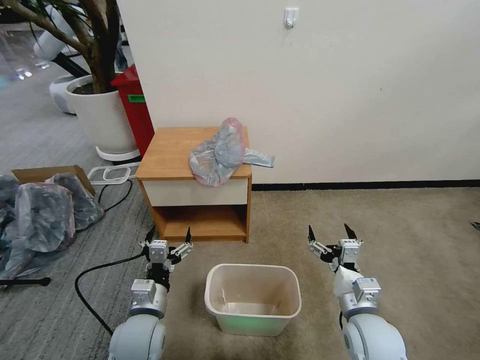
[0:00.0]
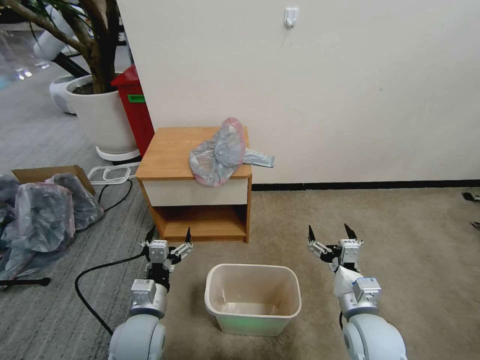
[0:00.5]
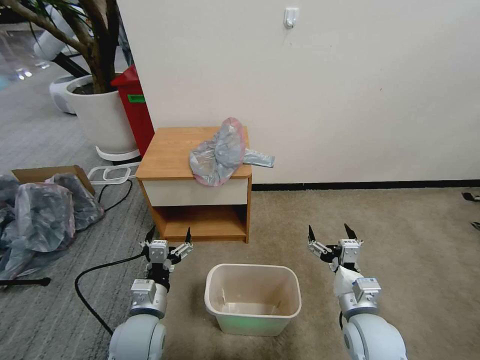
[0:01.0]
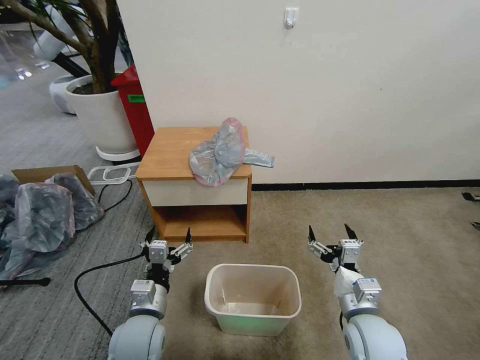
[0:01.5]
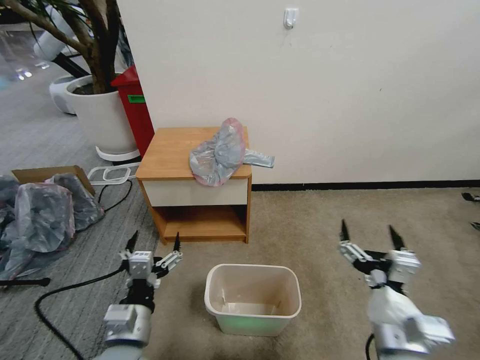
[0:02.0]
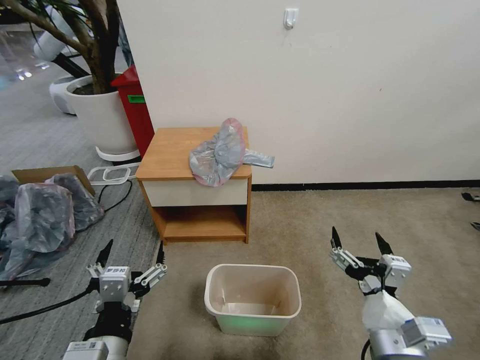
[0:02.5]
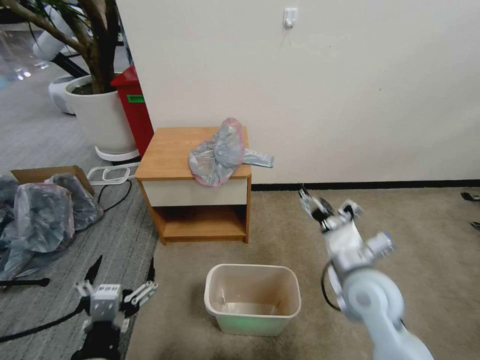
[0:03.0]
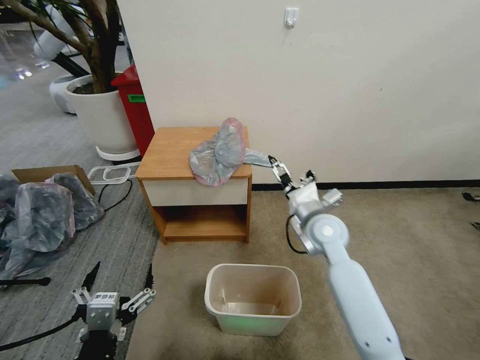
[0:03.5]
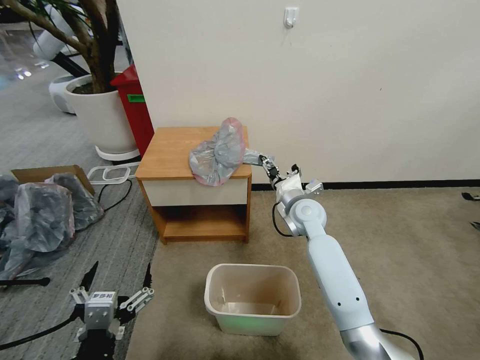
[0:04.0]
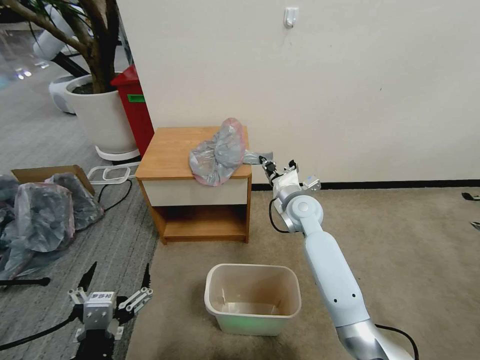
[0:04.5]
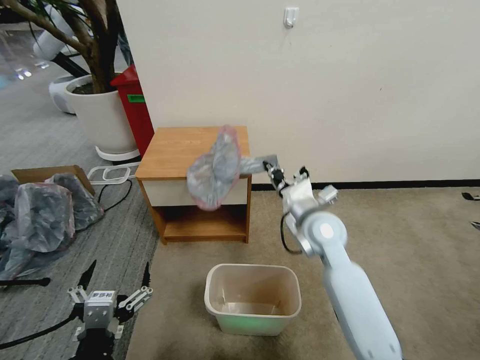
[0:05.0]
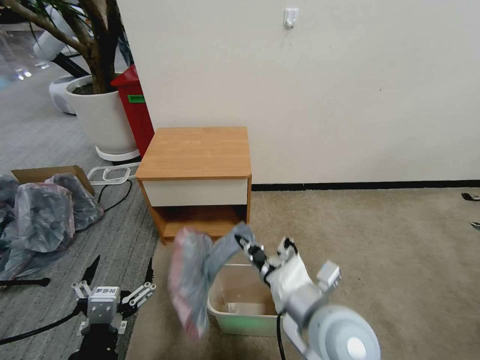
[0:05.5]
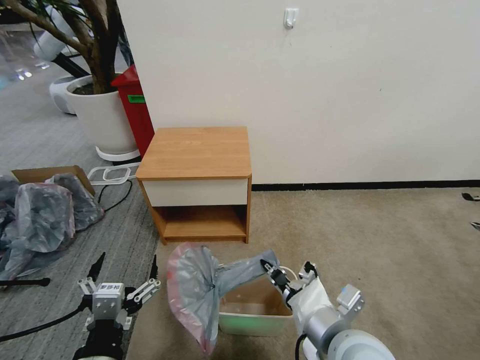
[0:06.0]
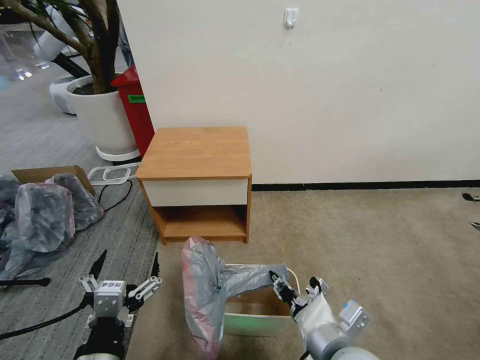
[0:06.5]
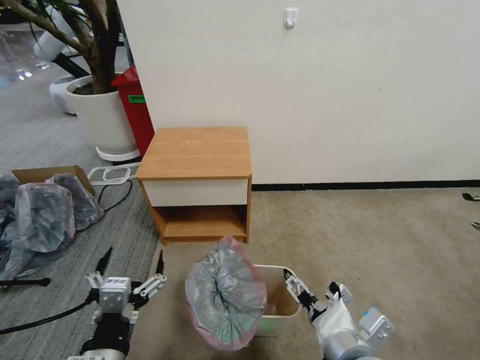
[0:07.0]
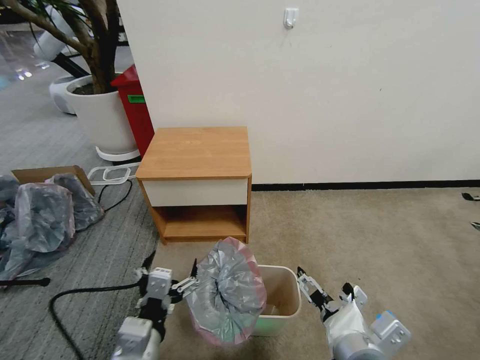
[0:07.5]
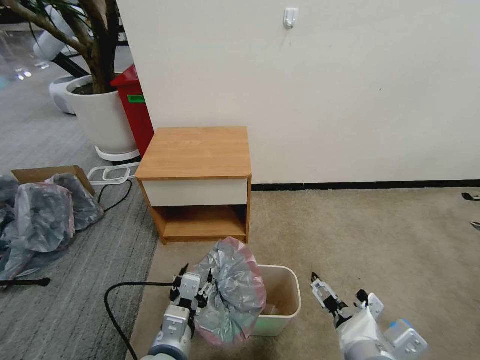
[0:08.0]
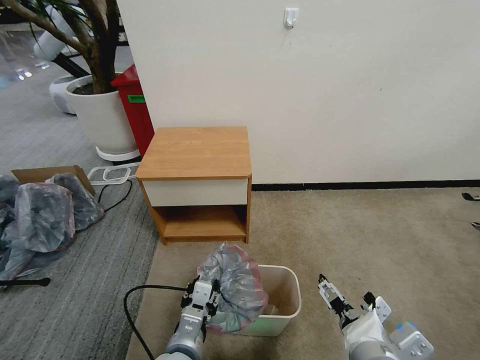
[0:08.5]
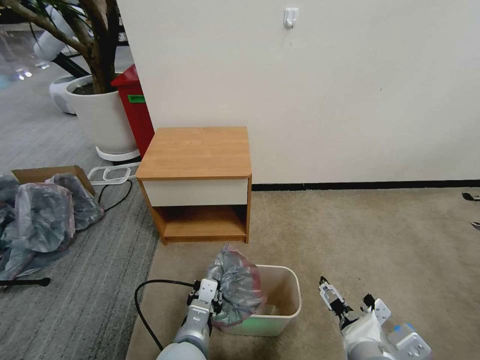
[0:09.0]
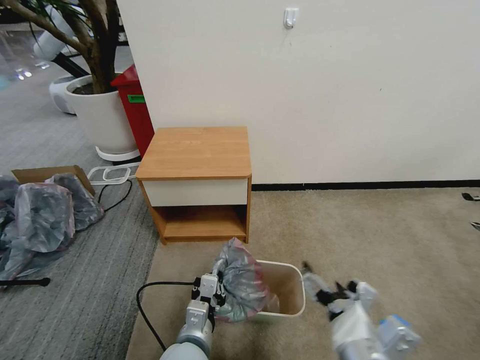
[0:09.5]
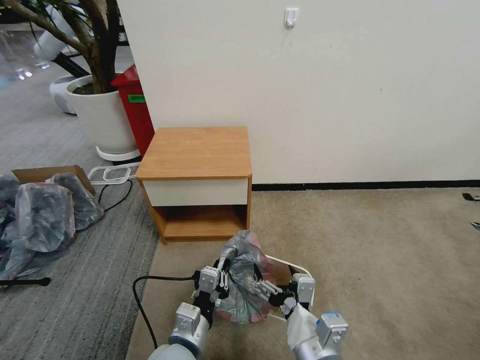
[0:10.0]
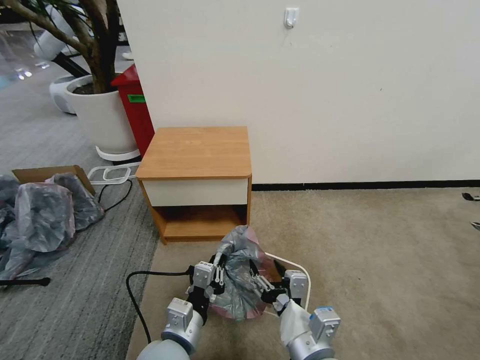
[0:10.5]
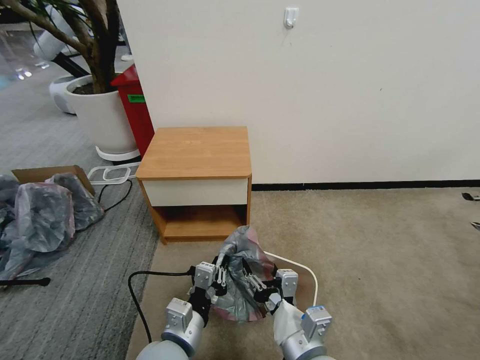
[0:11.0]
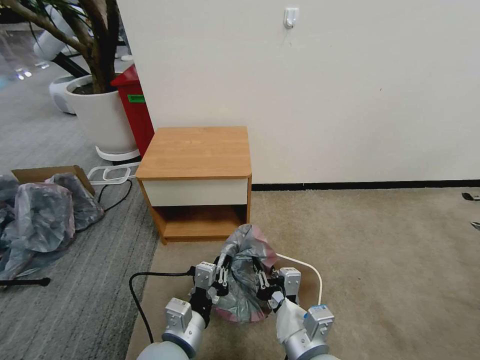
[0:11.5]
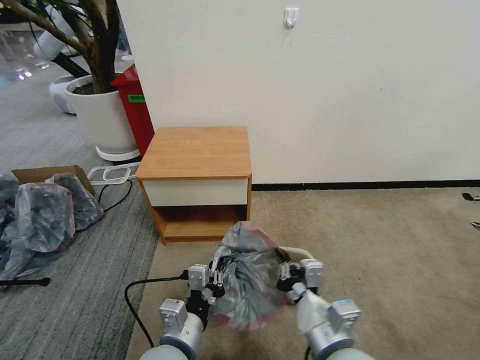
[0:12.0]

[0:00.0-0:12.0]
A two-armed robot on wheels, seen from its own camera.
Task of the whole recording: Pick up the garbage bag from the table and place it over the trash can.
0:02.0 to 0:04.0: The right gripper travels forward by about 35 cm, and closes its fingers. The left gripper travels backward and upward by about 10 cm.
0:04.0 to 0:06.0: The right gripper travels backward by roughly 30 cm, and closes its fingers.
0:06.0 to 0:08.0: The left gripper goes some 10 cm to the right, forward and downward, and closes up, while the right gripper shifts by about 5 cm, and opens.
0:08.0 to 0:10.0: The left gripper closes up. The right gripper travels to the left by roughly 5 cm.
0:10.0 to 0:12.0: The right gripper closes.

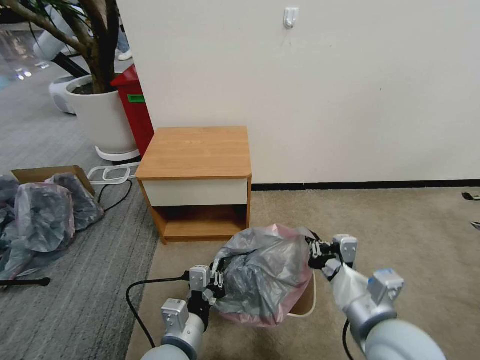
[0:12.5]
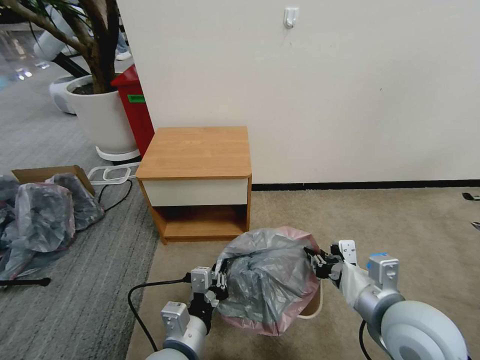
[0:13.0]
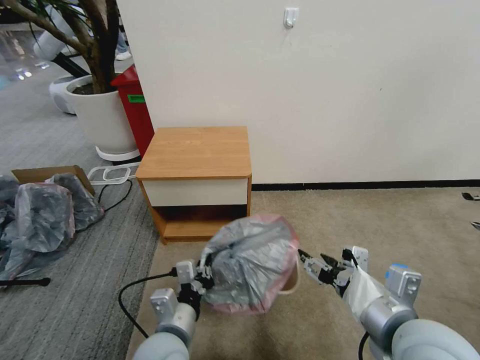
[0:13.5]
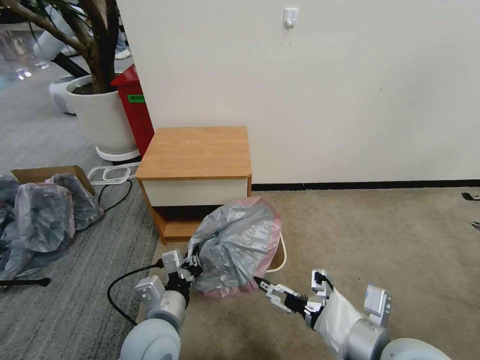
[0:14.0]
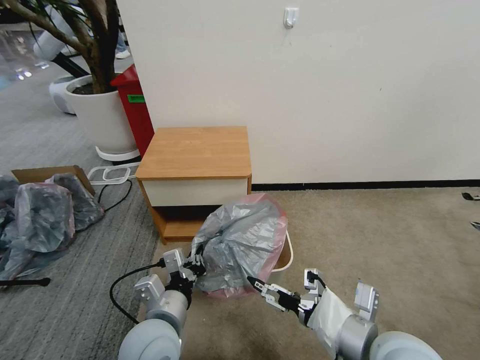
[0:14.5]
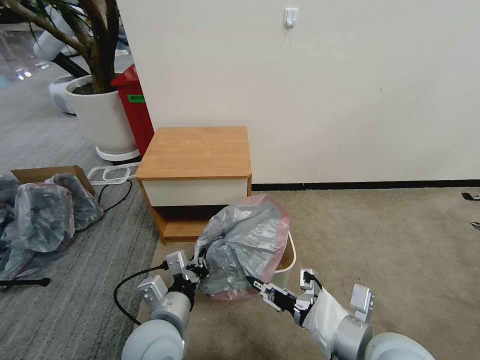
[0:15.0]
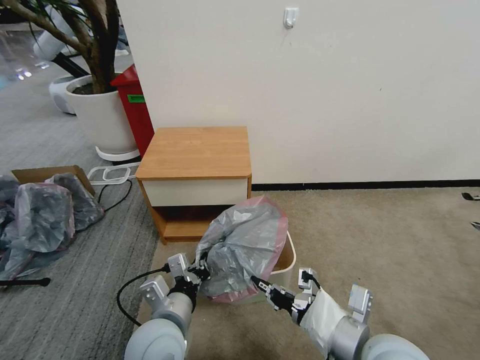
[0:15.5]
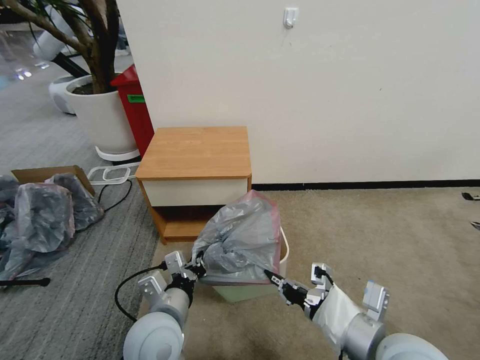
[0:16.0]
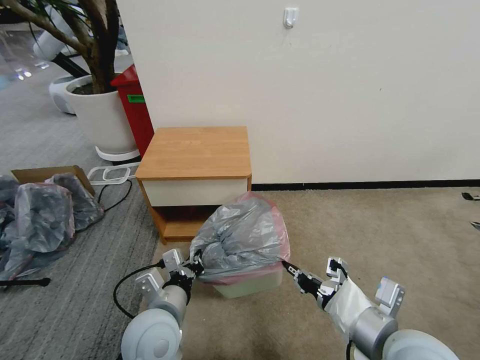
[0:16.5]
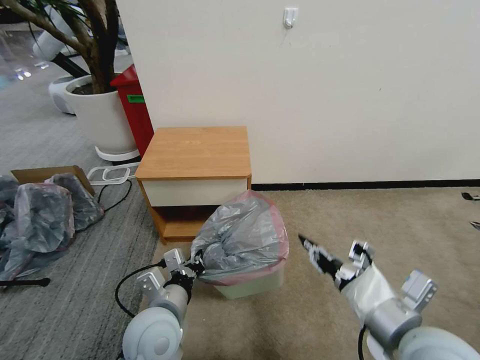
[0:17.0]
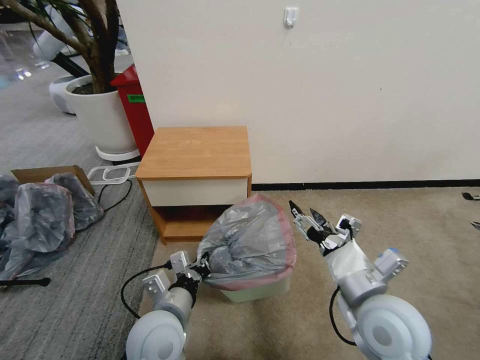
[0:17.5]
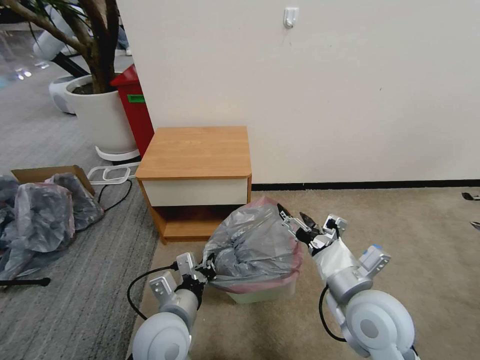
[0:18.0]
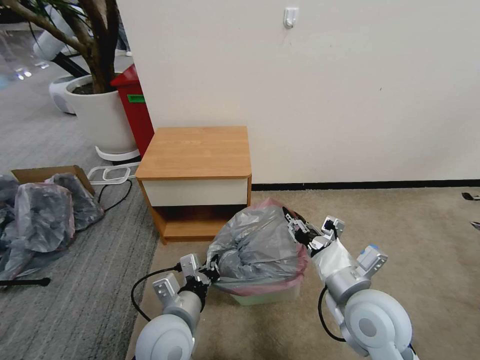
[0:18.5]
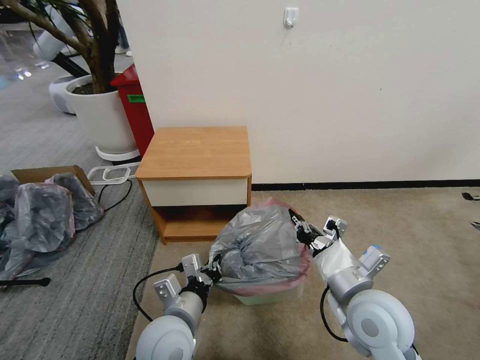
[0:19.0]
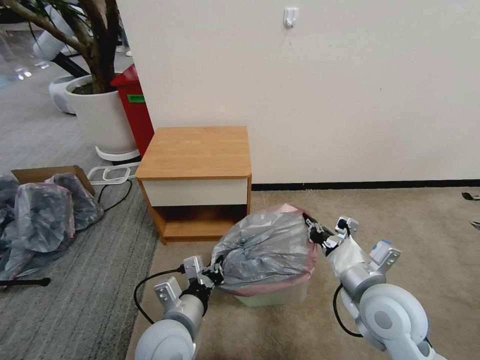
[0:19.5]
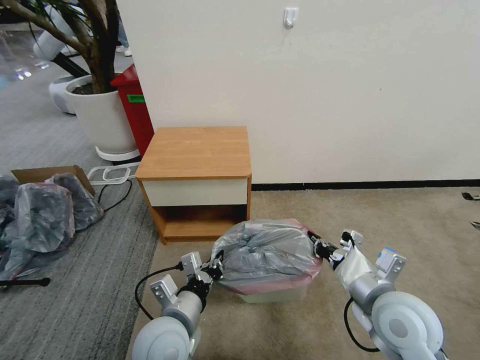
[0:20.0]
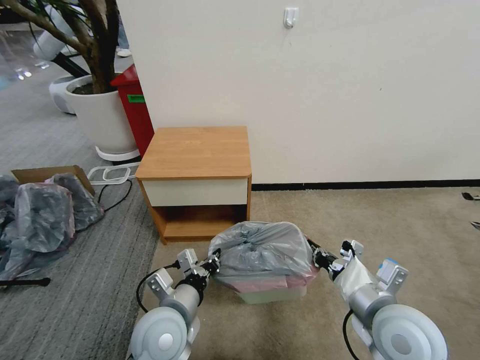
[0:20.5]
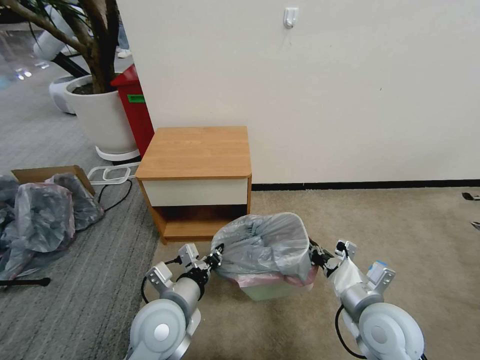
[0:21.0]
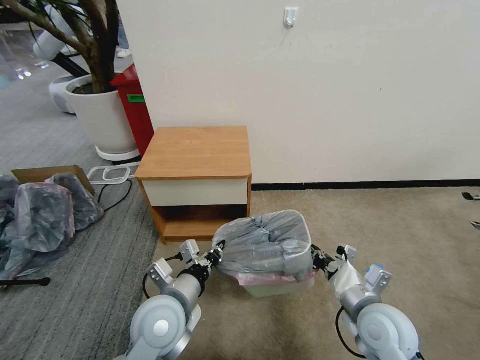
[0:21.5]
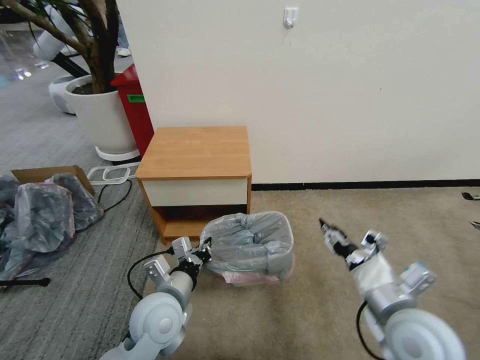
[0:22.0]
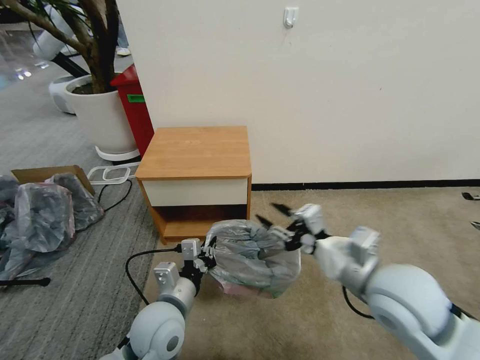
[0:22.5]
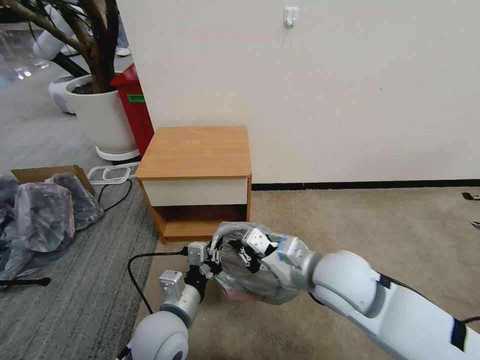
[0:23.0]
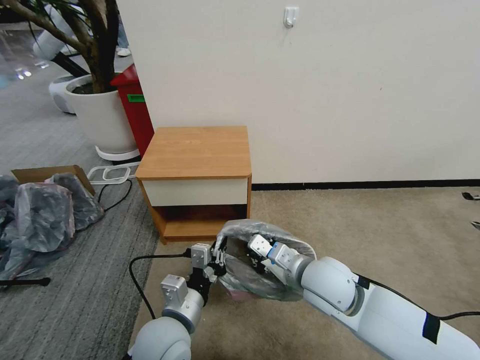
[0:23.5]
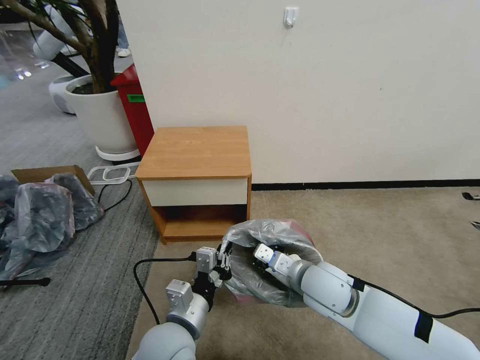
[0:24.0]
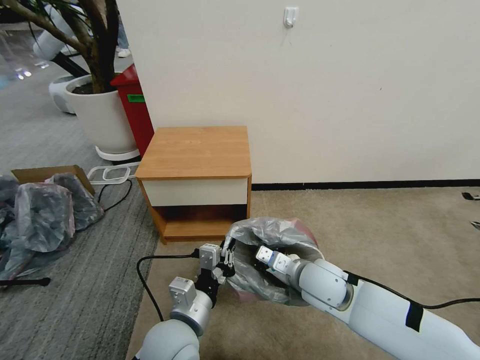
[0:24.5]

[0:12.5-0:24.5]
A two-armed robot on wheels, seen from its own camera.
Task of the whole recording: Pick up the garbage bag from the table and place it over the trash can.
0:12.5 to 0:14.5: The right gripper opens its fingers. The left gripper ends up roughly 5 cm from where it was.
0:14.5 to 0:16.5: The right gripper closes.
0:16.5 to 0:18.5: The right gripper is displaced forward by about 5 cm, and opens, then closes again.
0:18.5 to 0:20.5: The grippers make only small movements.
0:20.5 to 0:22.5: The right gripper shifts some 5 cm upward, and opens.
0:22.5 to 0:24.5: The right gripper shifts about 15 cm downward, forward and to the left, and closes; the left gripper shifts by roughly 5 cm.

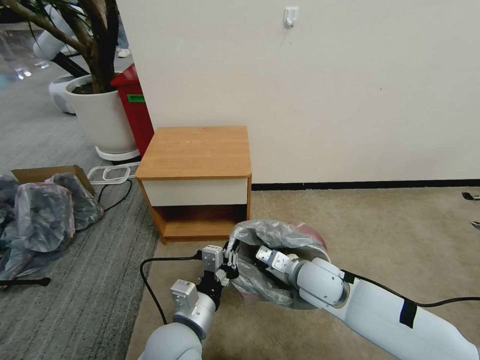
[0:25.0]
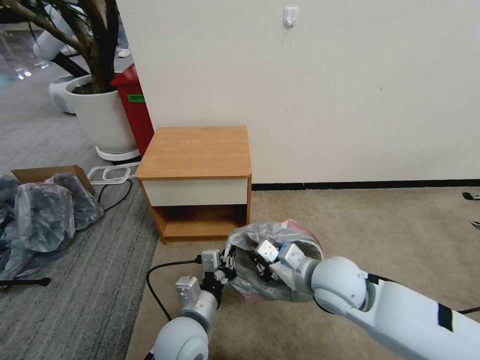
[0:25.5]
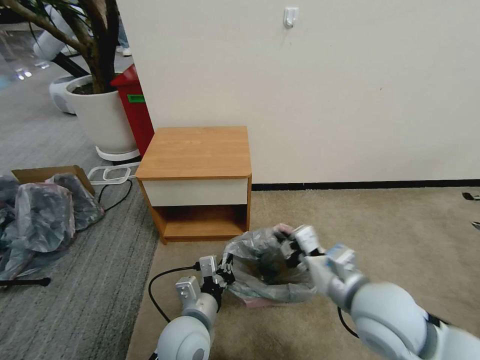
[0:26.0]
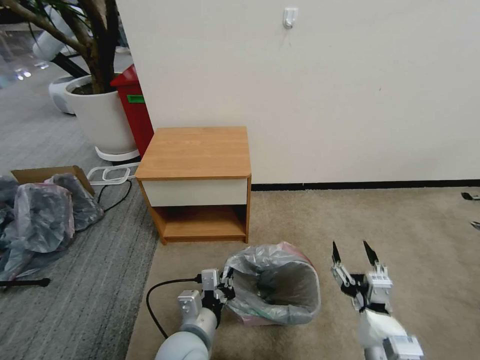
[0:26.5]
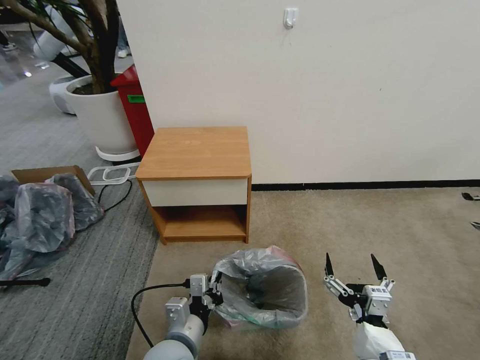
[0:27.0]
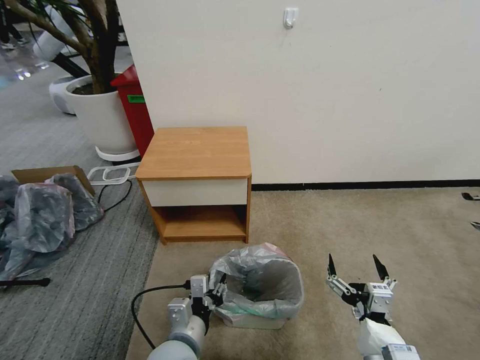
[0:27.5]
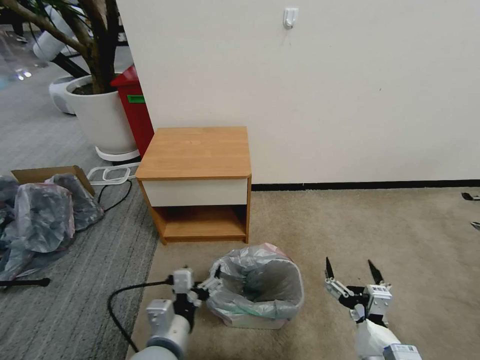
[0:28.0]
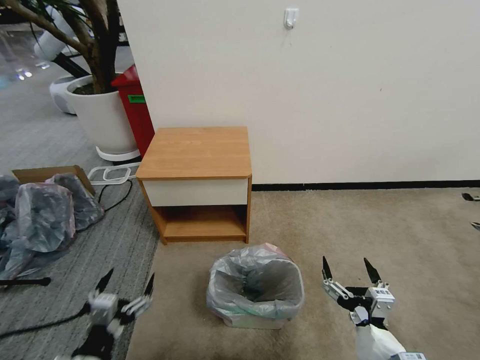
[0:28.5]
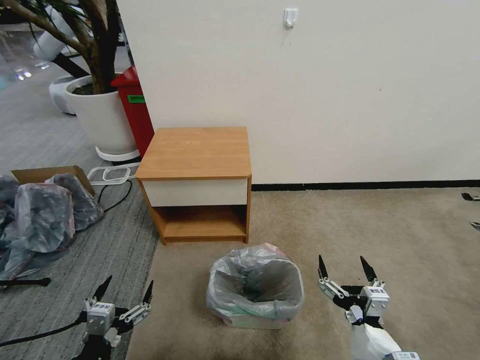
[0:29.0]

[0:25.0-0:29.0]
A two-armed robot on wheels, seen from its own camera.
Task of the whole recording: Pick up the garbage bag from the table and place it over the trash can.
0:25.0 to 0:27.0: The right gripper goes approximately 20 cm backward, and opens its fingers; the left gripper shifts roughly 5 cm downward.
0:27.0 to 0:29.0: The left gripper heads to the left and backward, covering about 20 cm, and opens.
